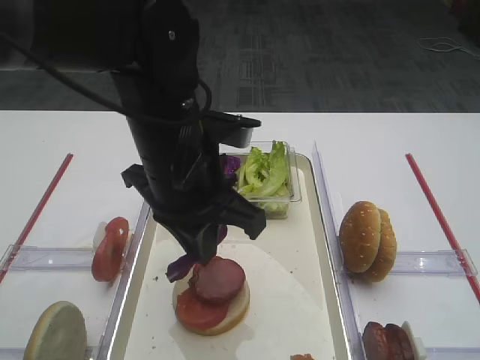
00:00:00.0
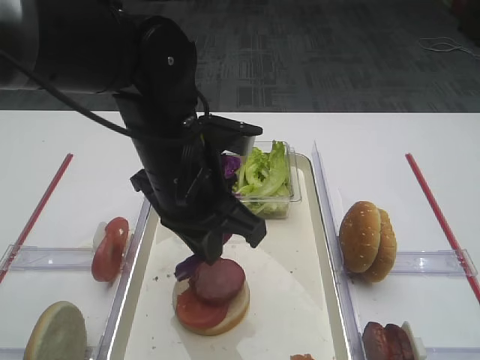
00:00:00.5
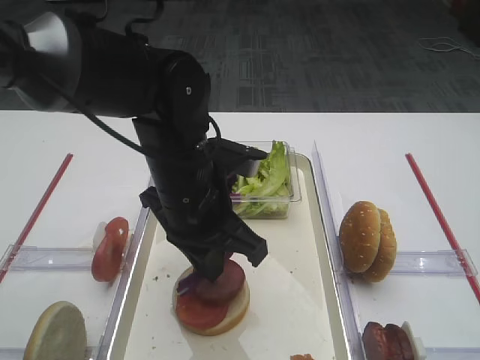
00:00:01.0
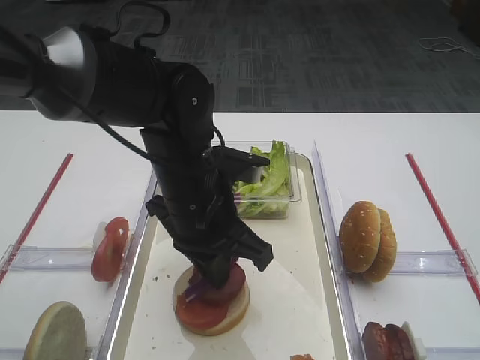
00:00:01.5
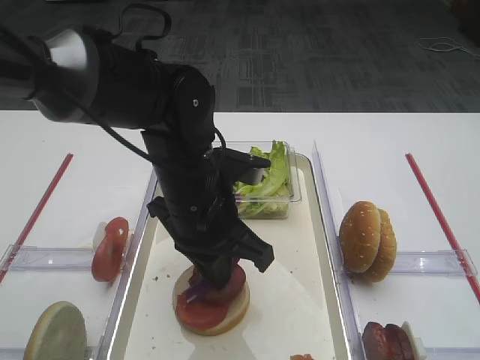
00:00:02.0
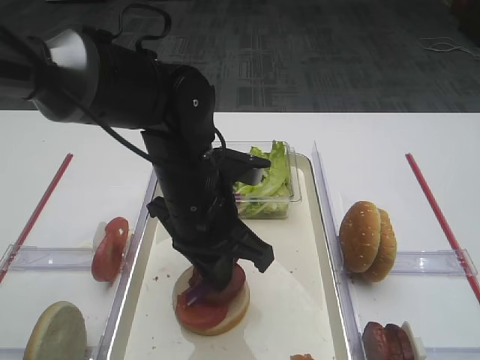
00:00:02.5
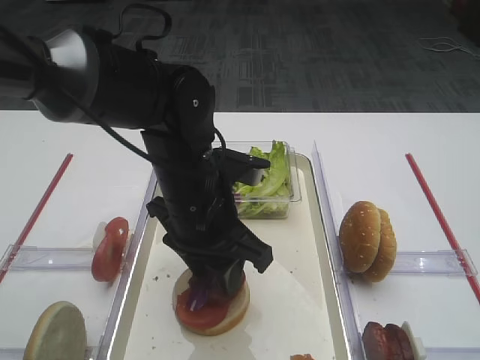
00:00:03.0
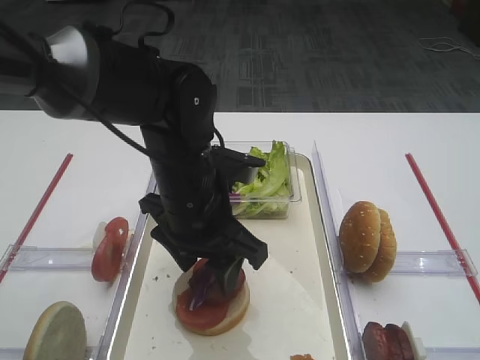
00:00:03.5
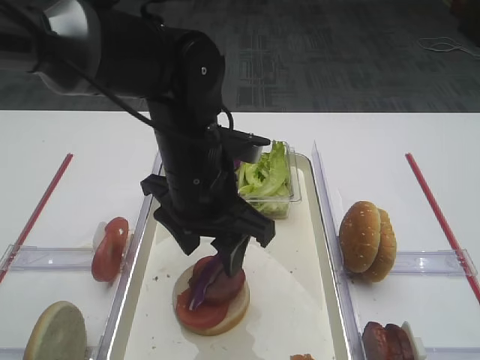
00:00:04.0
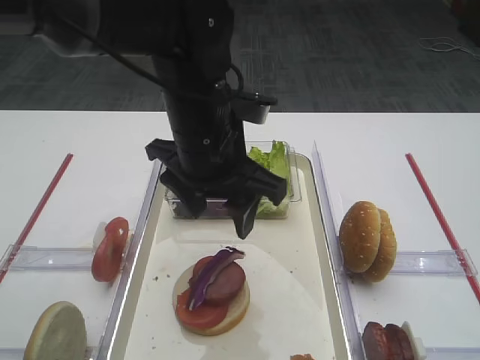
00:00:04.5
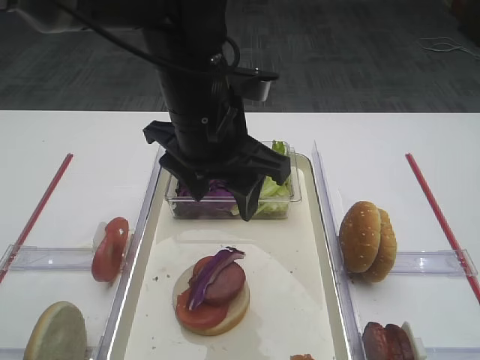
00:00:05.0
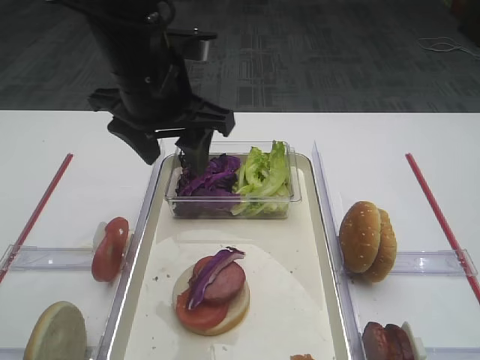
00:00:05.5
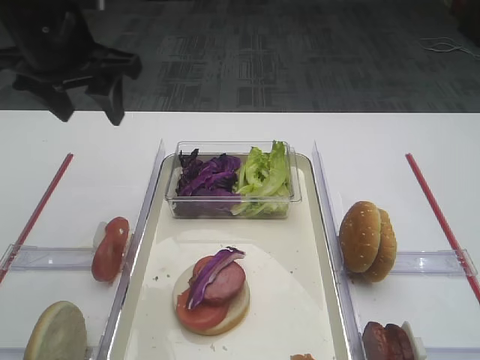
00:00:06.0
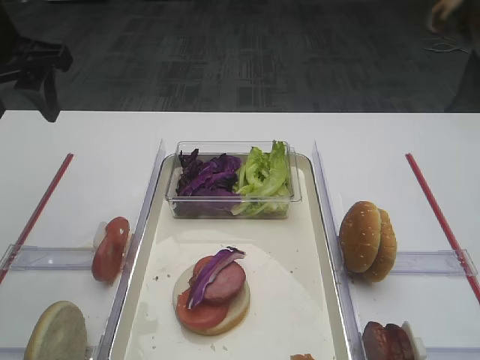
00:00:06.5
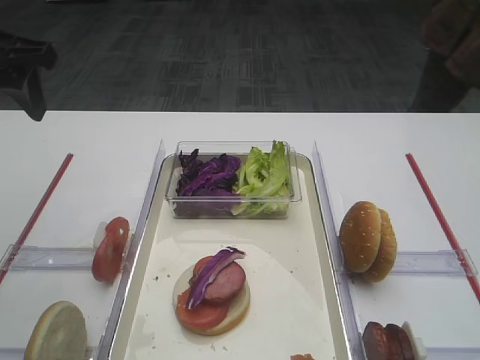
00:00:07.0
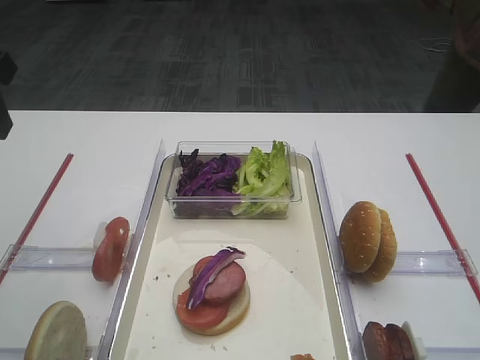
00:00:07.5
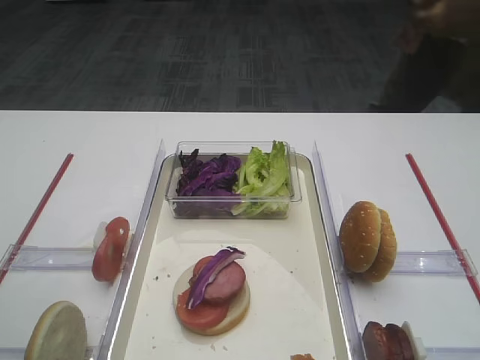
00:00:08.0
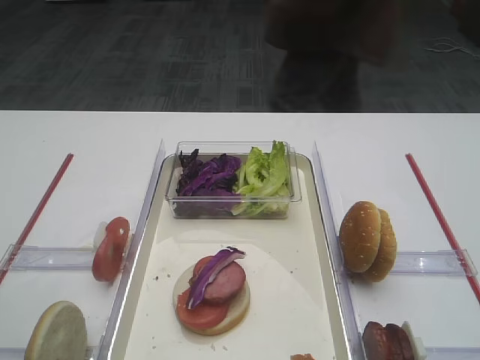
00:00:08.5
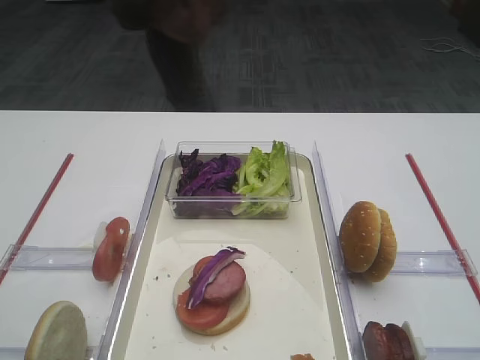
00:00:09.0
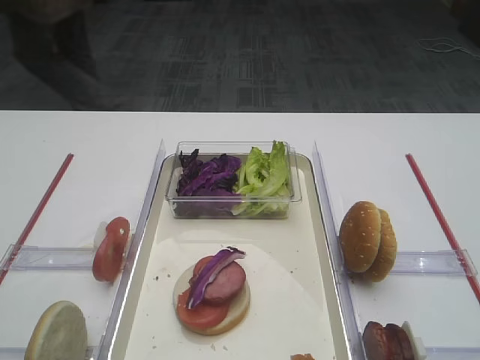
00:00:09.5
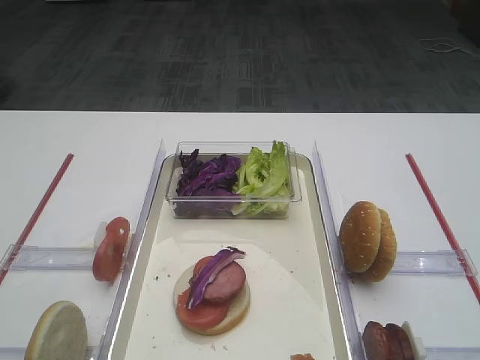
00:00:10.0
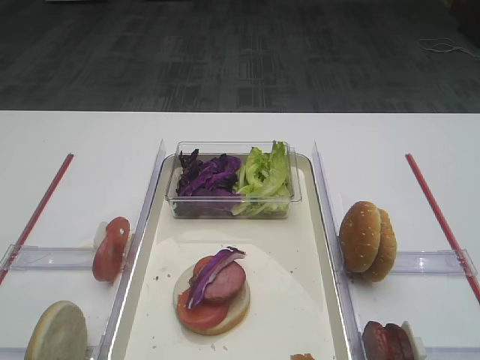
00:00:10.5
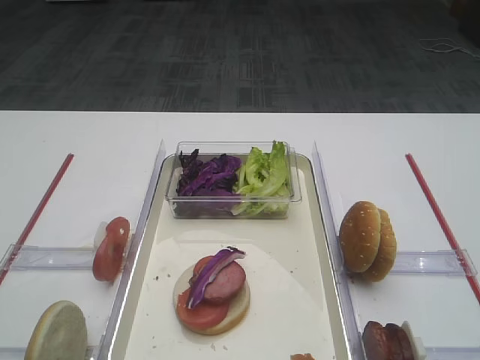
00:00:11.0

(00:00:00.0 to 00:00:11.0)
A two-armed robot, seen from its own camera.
Step, 00:00:00.0 - 00:00:04.0: Place the purple cabbage on the cutlet with the left gripper.
00:00:00.0 - 00:00:02.0: The left gripper moves downward, some 5 cm.
00:00:02.0 - 00:00:03.5: The left gripper opens.
00:00:03.5 - 00:00:05.5: The left gripper moves upward, approximately 10 cm.
00:00:05.5 - 00:00:07.5: The left gripper is displaced to the left by approximately 20 cm.
00:00:07.5 - 00:00:09.0: The left gripper shifts about 20 cm backward.
00:00:09.0 - 00:00:11.0: The left gripper is displaced backward and downward by approximately 10 cm.

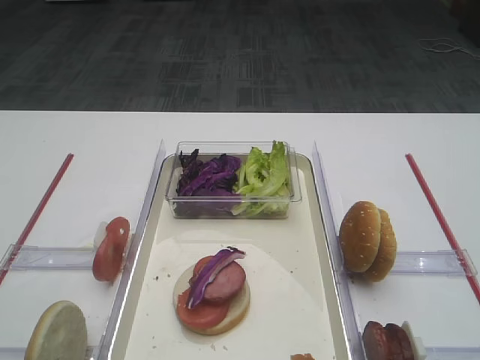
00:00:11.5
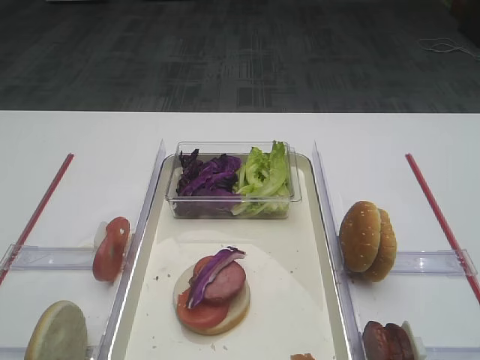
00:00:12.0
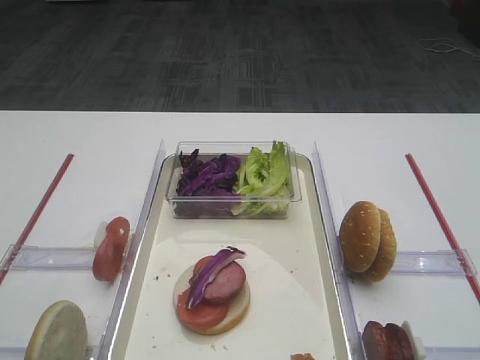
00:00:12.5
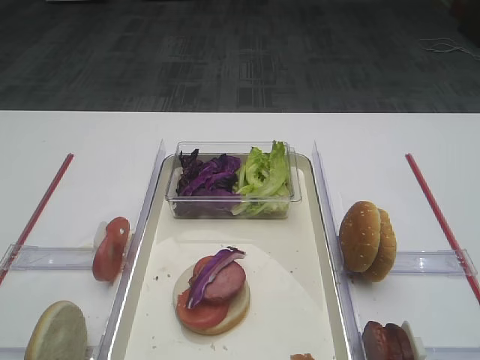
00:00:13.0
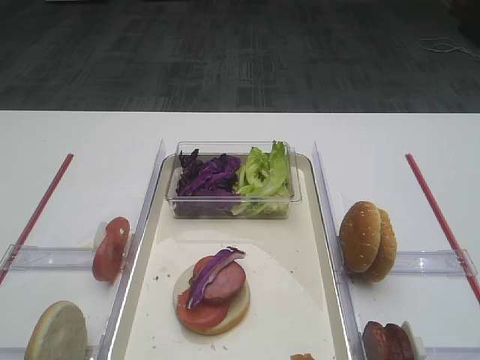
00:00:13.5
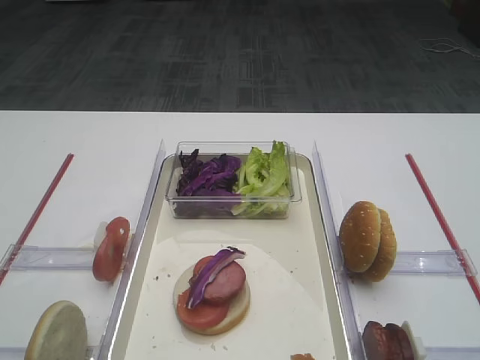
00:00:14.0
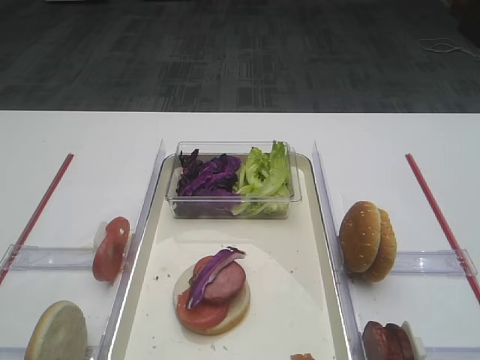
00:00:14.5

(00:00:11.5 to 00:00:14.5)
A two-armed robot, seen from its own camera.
00:00:11.5 - 00:00:14.5: The two grippers keep their place.

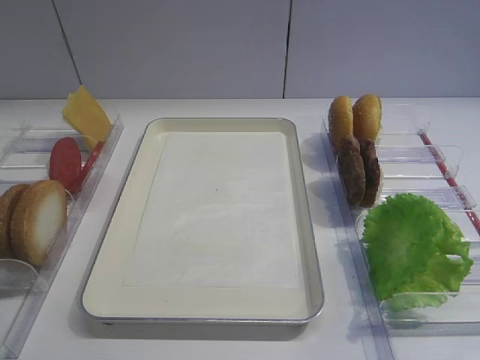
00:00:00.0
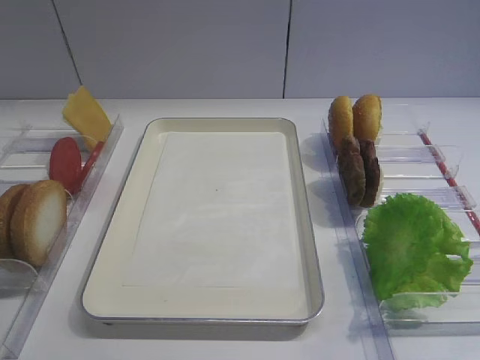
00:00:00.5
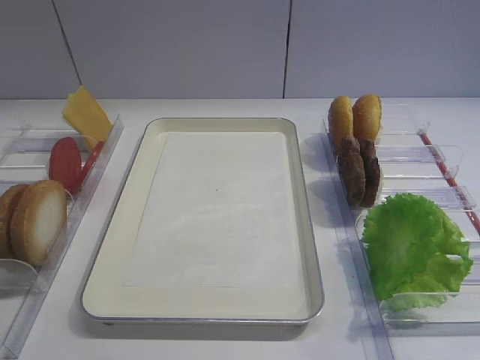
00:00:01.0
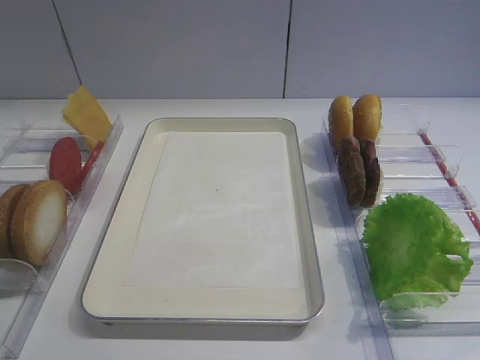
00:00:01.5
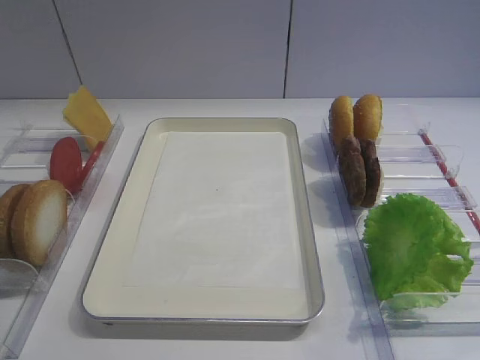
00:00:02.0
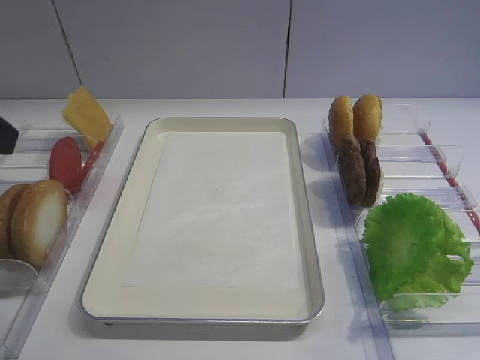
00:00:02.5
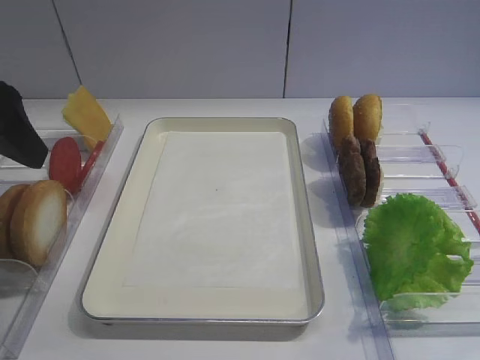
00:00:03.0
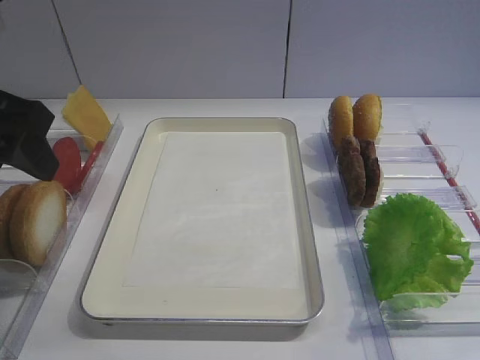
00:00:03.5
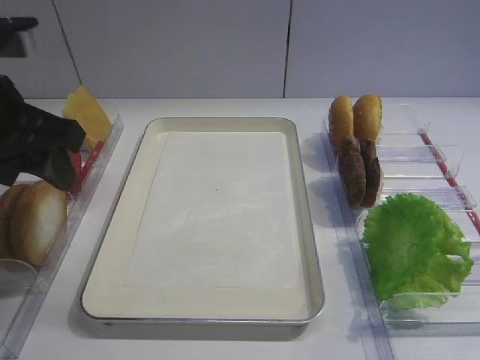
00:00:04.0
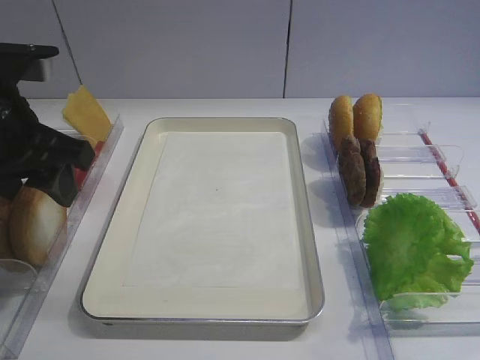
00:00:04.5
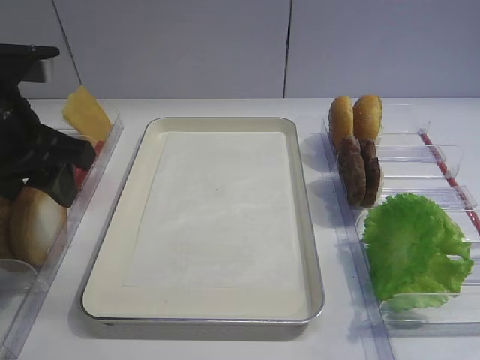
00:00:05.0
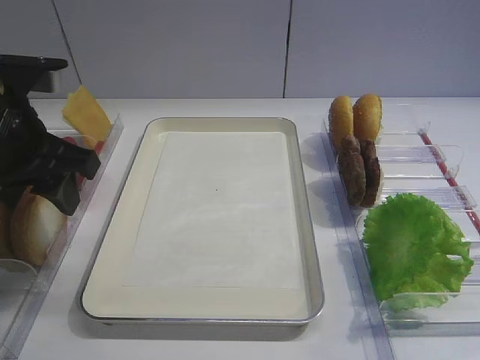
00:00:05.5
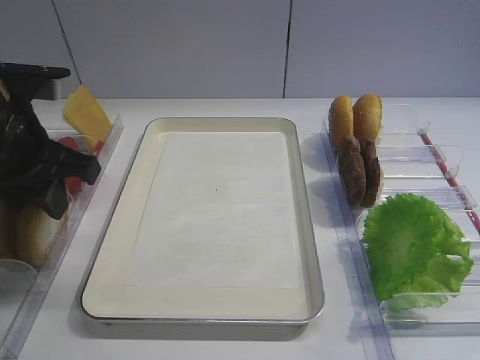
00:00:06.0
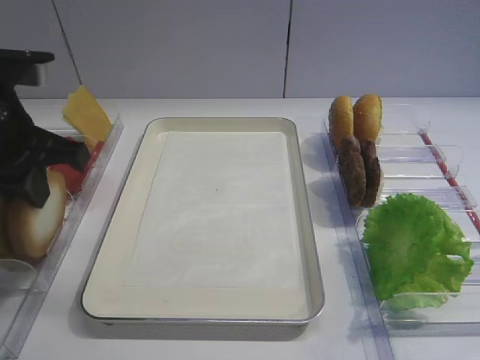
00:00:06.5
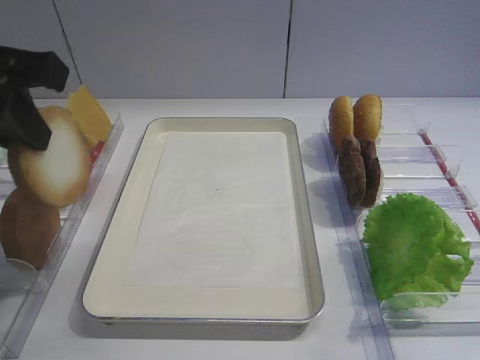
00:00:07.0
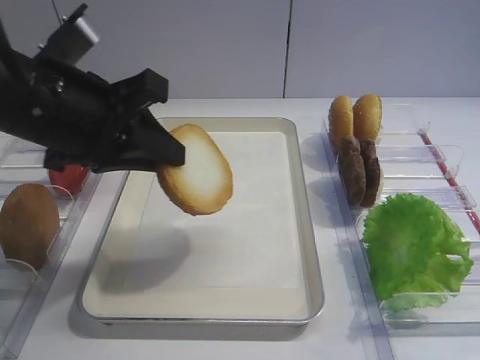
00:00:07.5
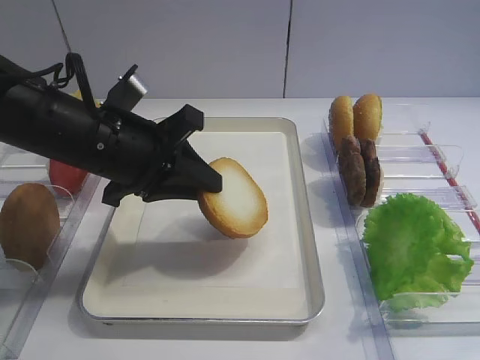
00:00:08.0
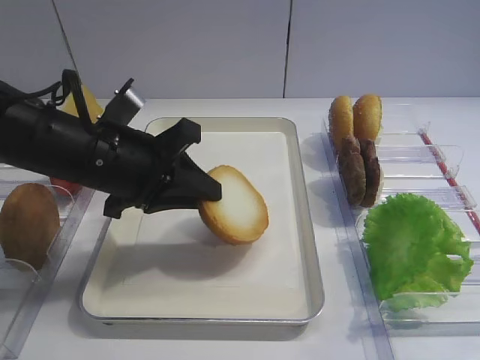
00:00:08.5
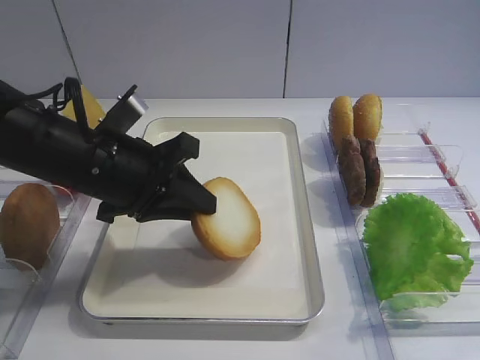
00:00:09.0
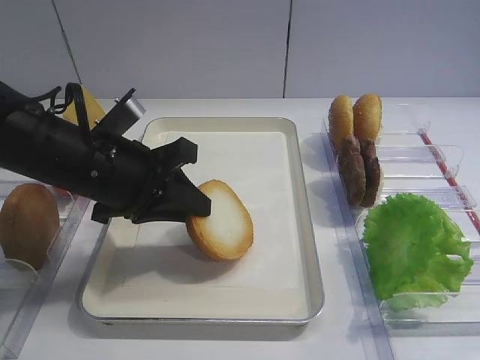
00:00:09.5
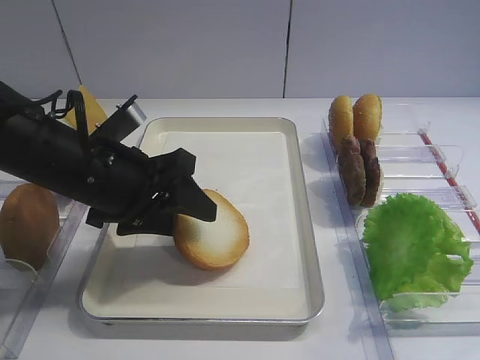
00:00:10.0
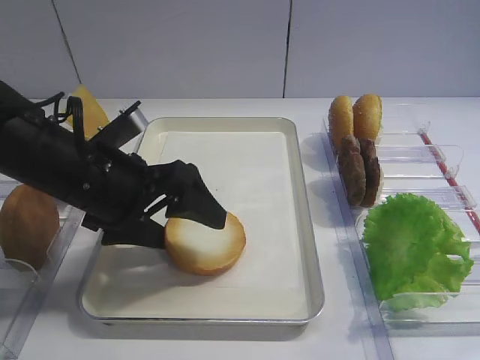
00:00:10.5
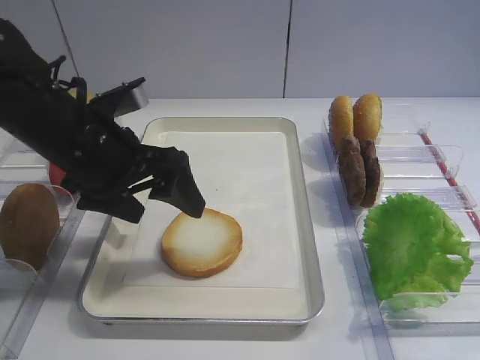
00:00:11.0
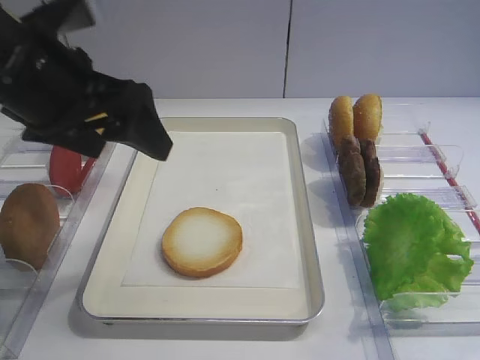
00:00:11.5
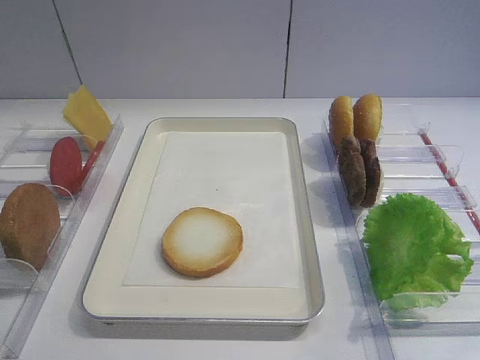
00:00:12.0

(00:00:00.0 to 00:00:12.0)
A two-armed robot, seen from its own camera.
Step, 00:00:00.0 - 00:00:06.5: Pick up the bread slice with the left gripper.
Step, 00:00:07.0 - 00:00:11.0: Place the bread slice on the tray with the left gripper.
00:00:02.0 - 00:00:04.0: The left gripper heads forward, covering some 20 cm, and closes.
00:00:04.0 - 00:00:06.0: The left gripper closes.
00:00:06.0 - 00:00:08.0: The left gripper shifts approximately 10 cm to the right, and travels upward and back again, about 10 cm each way.
00:00:08.0 - 00:00:10.0: The left gripper opens.
00:00:10.0 - 00:00:12.0: The left gripper shifts approximately 25 cm upward, backward and to the left, and opens up.
